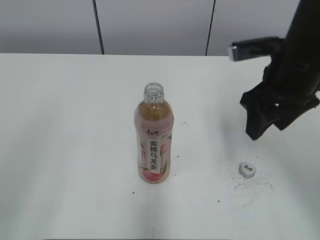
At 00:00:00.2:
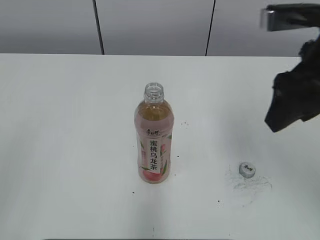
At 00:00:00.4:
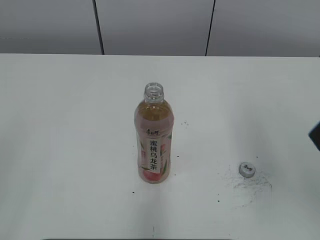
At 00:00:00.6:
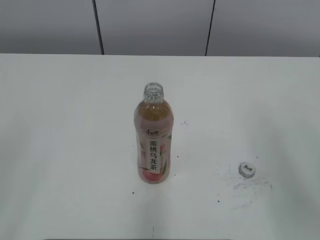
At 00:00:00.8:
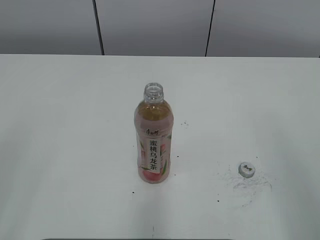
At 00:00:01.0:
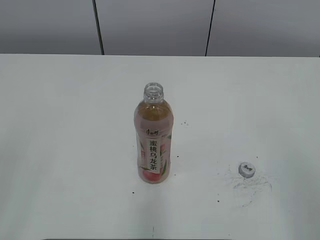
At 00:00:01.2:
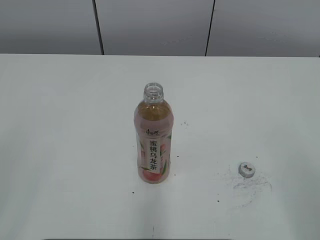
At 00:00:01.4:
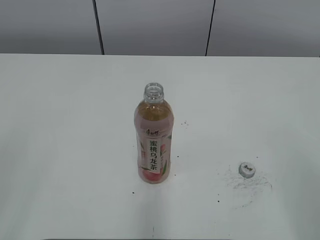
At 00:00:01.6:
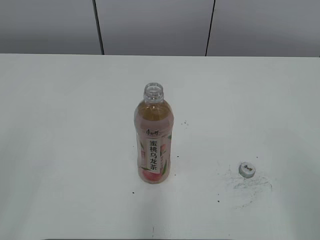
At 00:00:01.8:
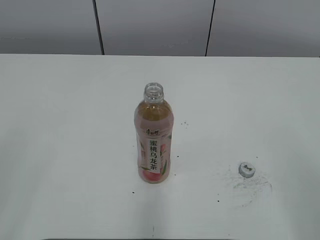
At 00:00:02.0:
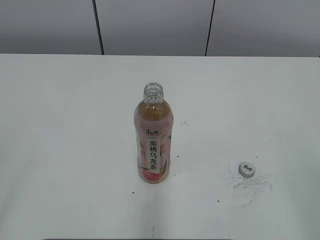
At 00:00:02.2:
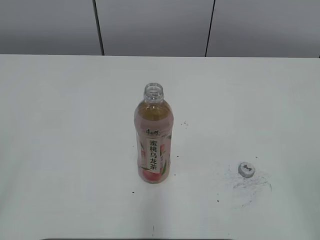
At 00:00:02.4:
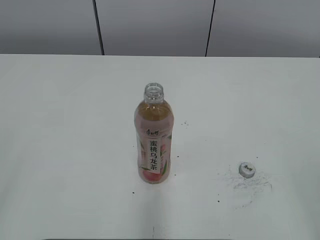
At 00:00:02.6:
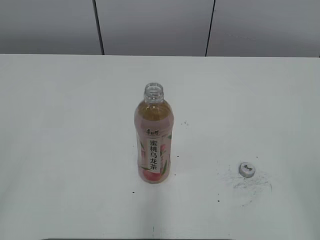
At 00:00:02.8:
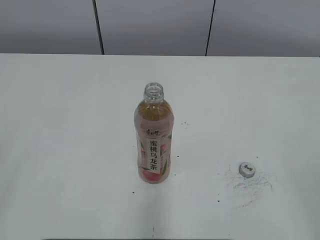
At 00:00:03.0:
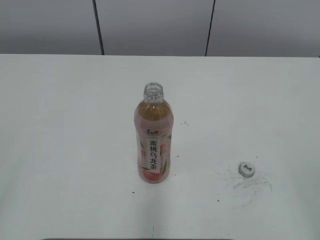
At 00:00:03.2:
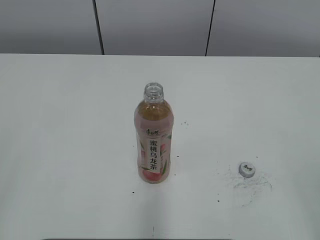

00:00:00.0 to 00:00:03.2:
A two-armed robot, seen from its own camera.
00:00:00.0 to 00:00:01.6: The right gripper travels backward by some 30 cm; the left gripper shifts roughly 5 cm backward, and closes up.
